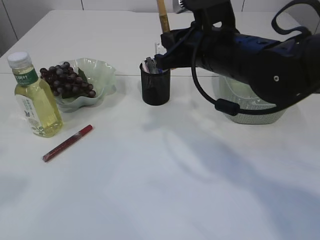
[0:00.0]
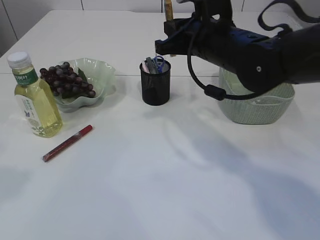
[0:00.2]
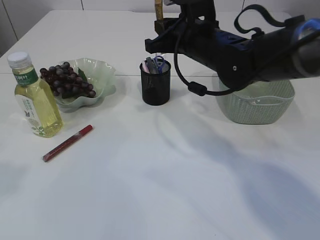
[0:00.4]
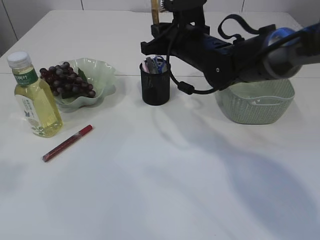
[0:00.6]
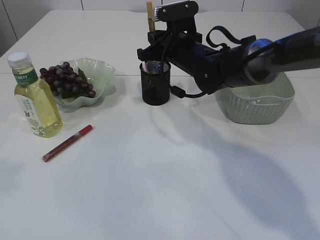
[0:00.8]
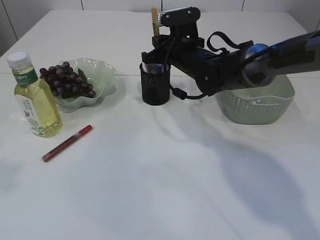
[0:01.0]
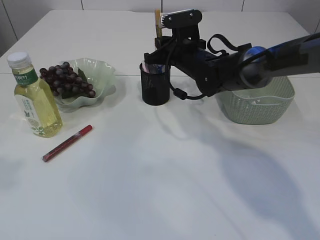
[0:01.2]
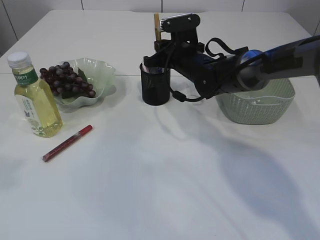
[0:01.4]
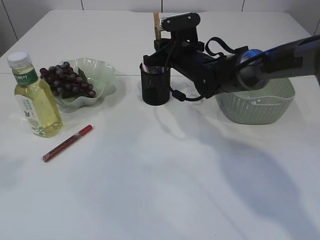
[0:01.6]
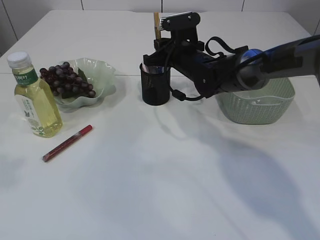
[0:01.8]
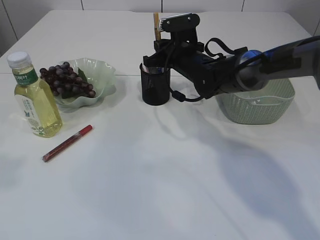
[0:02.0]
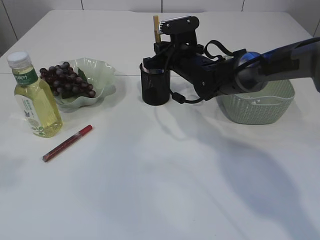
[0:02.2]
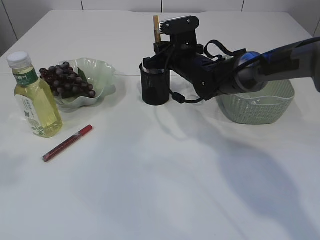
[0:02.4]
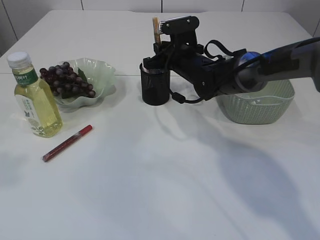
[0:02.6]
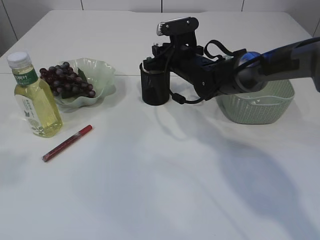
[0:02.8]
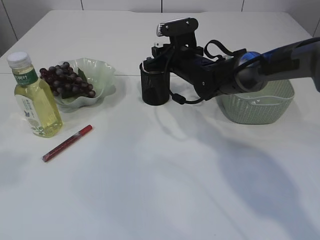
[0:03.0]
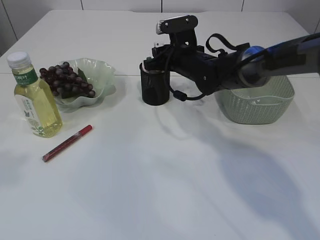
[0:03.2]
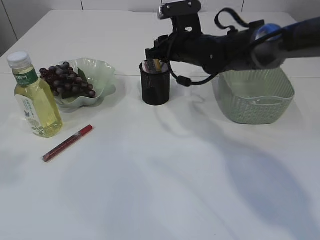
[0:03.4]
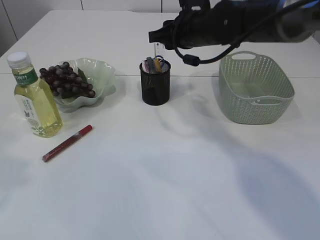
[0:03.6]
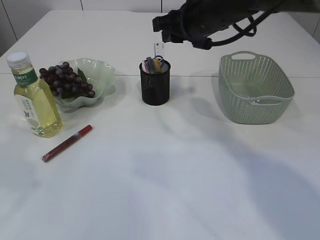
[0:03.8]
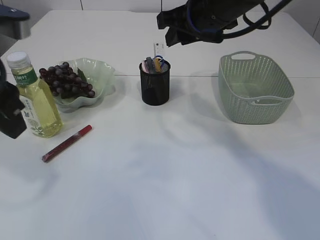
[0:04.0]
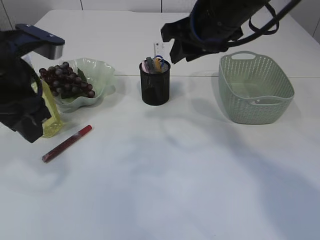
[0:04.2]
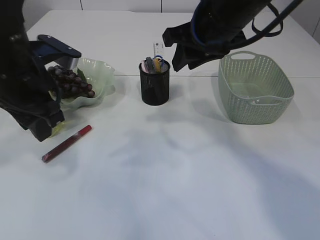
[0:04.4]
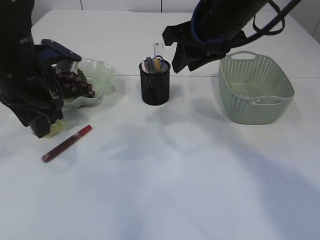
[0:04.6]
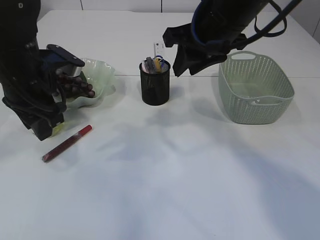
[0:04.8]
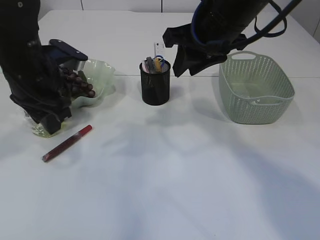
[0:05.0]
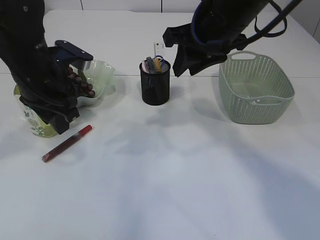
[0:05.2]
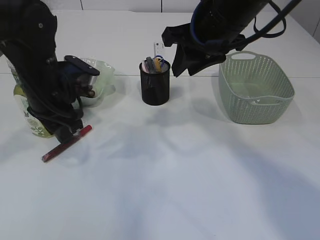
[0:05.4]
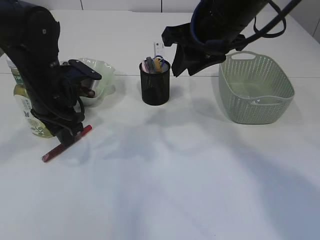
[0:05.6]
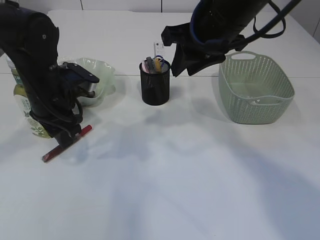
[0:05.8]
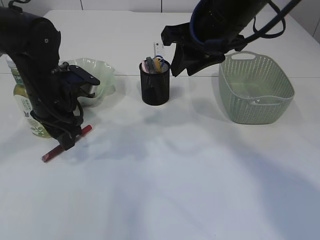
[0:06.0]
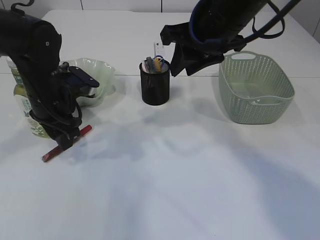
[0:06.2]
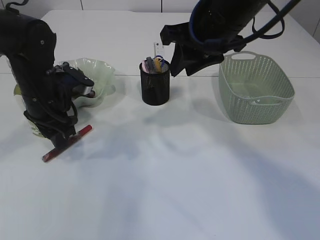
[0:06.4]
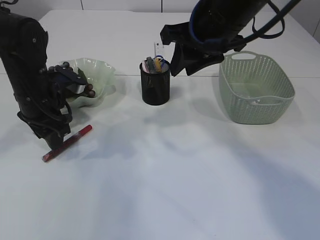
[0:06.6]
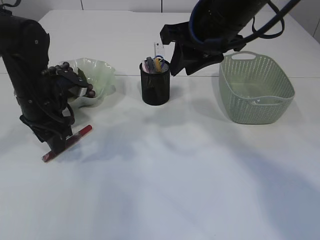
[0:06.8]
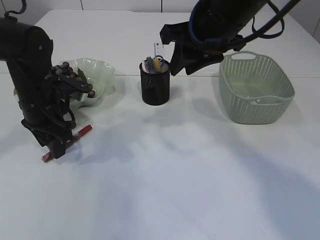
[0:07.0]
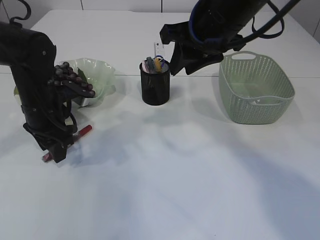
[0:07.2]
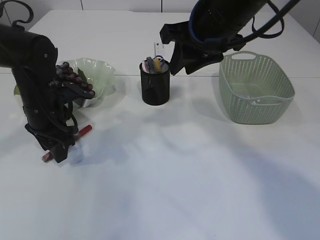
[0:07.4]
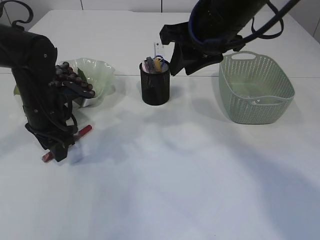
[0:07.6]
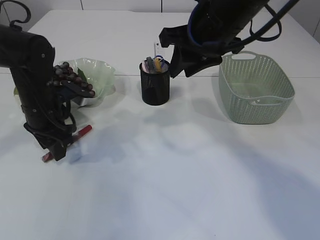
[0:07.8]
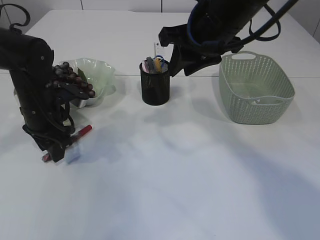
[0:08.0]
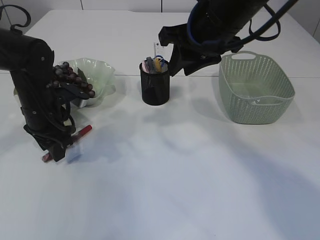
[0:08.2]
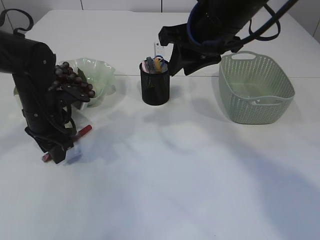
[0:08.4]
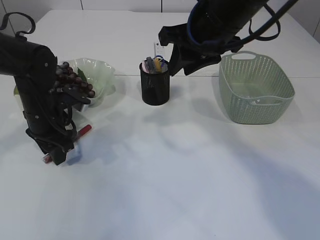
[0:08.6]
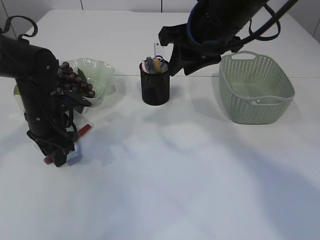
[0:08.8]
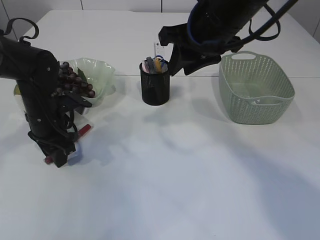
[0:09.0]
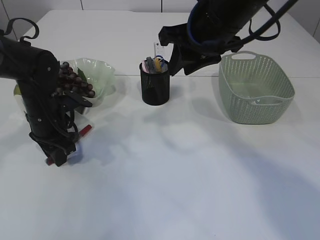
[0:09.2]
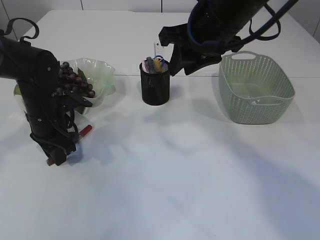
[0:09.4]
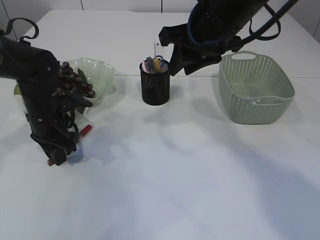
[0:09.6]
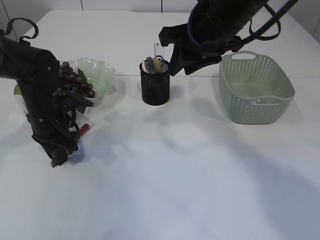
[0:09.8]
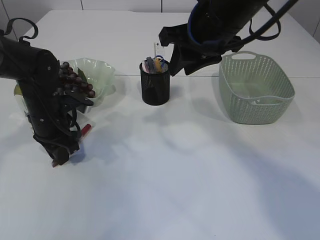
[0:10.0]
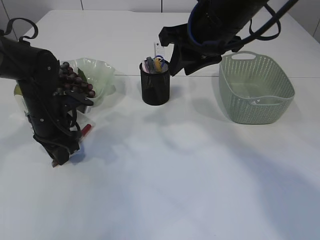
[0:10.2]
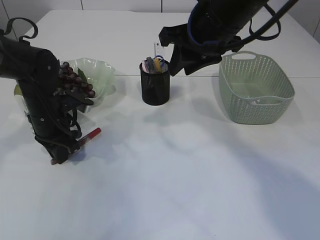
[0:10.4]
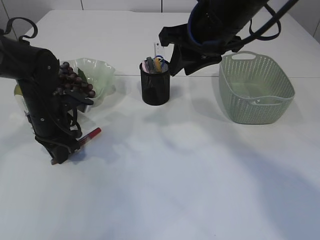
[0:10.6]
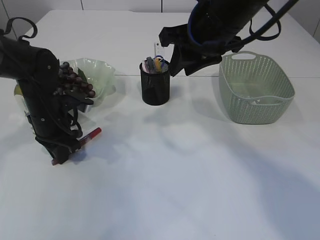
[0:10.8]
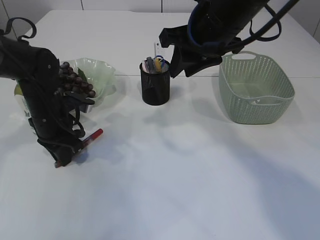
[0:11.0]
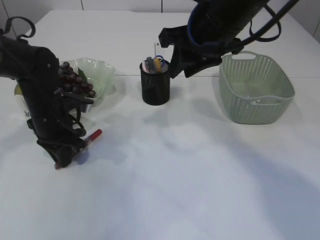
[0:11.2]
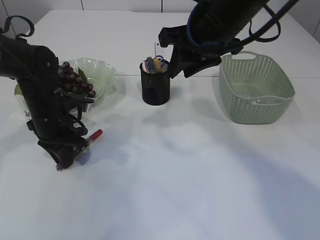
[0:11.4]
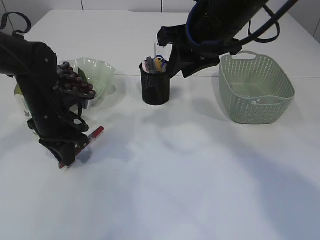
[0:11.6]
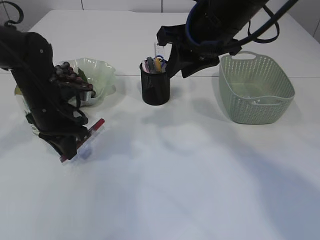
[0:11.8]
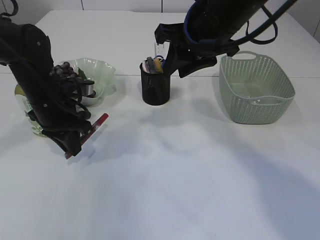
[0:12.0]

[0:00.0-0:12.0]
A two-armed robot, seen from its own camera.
Step, 0:00.0 to 0:03.4: place the yellow glue into the pen holder.
0:00.0 to 0:01.6: The right gripper travels forward and downward by about 15 cm.
0:01.6 to 0:03.0: Both grippers stay put.
0:03.0 to 0:04.4: The right gripper goes roughly 20 cm upward and backward, while the left gripper shifts some 20 cm forward, downward and to the right.
0:04.4 to 0:06.0: The left gripper travels downward and forward by some 10 cm.
0:06.0 to 0:07.6: The grippers stay close to where they were, moving slightly.
0:07.6 to 0:09.0: There are only small adjustments of the grippers.
0:09.0 to 0:10.4: The left gripper closes up.
0:10.4 to 0:12.0: The grippers move only a little.

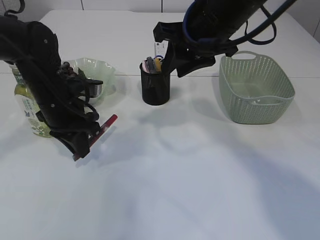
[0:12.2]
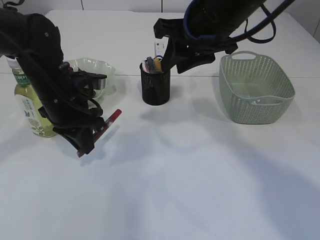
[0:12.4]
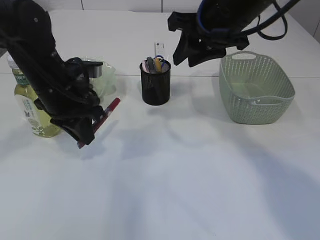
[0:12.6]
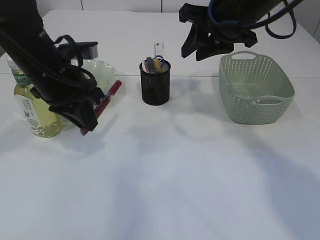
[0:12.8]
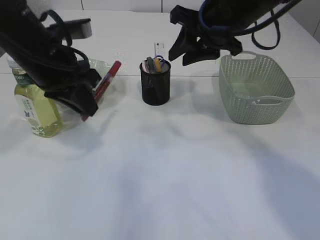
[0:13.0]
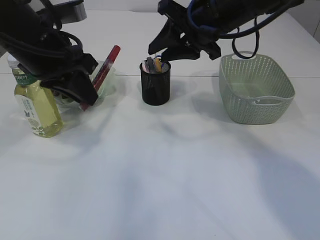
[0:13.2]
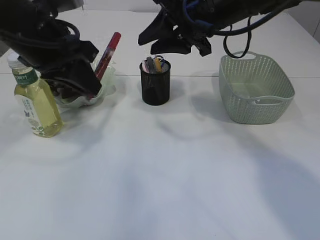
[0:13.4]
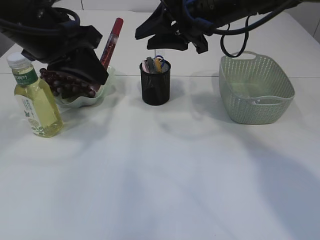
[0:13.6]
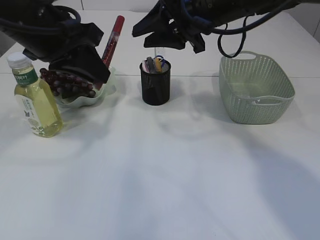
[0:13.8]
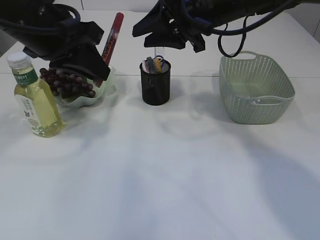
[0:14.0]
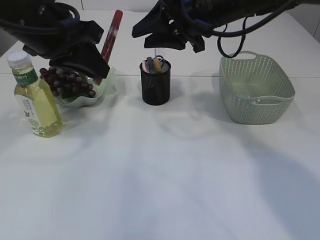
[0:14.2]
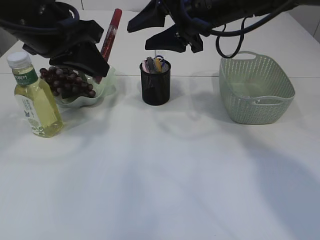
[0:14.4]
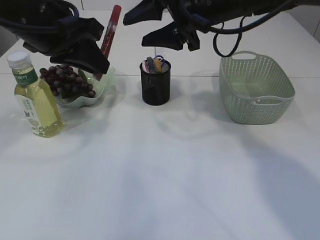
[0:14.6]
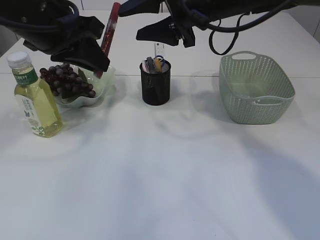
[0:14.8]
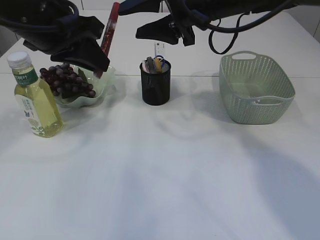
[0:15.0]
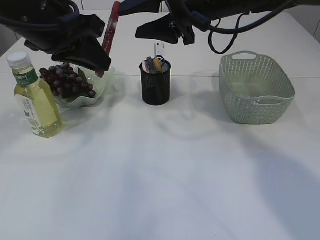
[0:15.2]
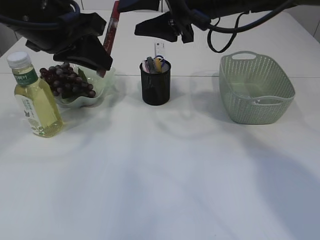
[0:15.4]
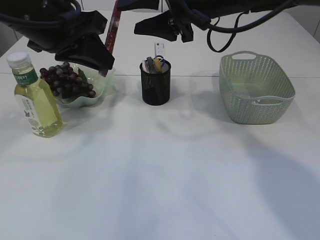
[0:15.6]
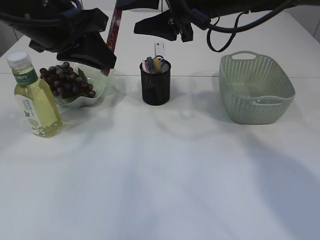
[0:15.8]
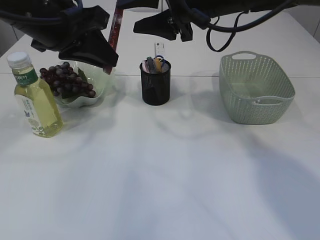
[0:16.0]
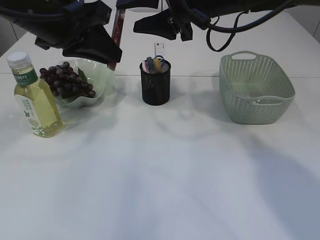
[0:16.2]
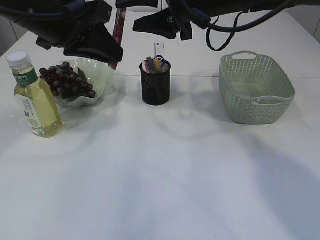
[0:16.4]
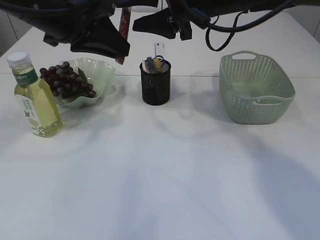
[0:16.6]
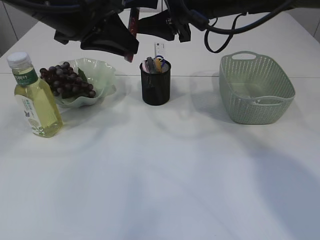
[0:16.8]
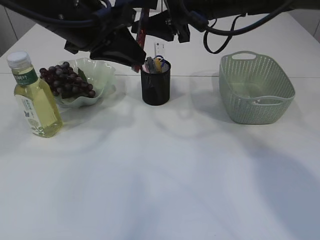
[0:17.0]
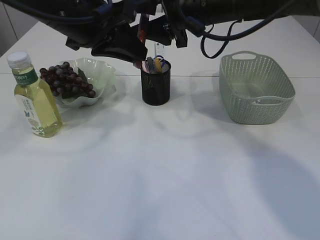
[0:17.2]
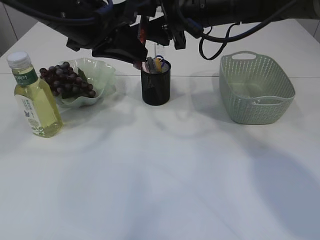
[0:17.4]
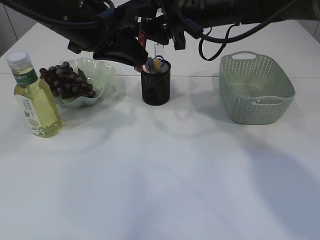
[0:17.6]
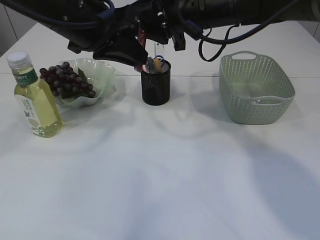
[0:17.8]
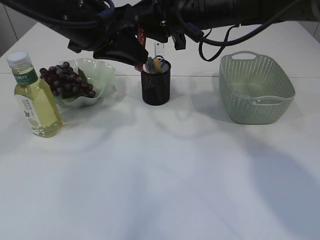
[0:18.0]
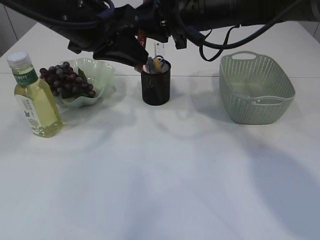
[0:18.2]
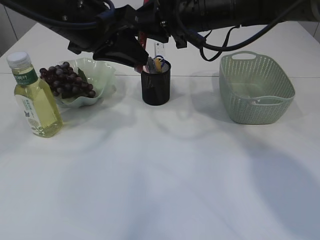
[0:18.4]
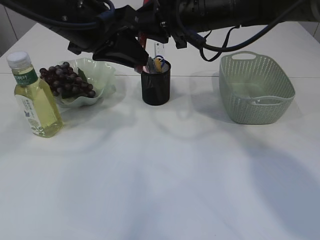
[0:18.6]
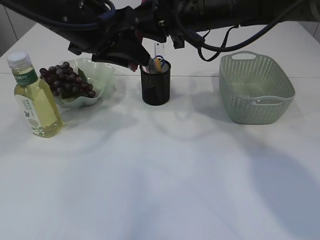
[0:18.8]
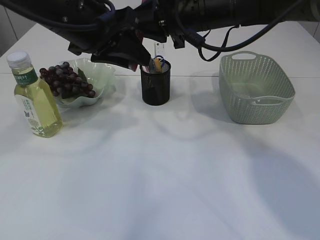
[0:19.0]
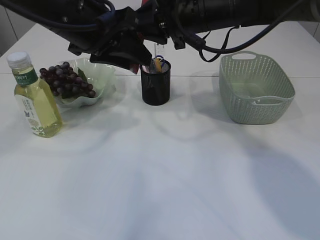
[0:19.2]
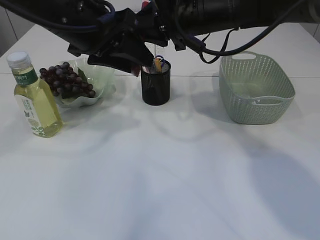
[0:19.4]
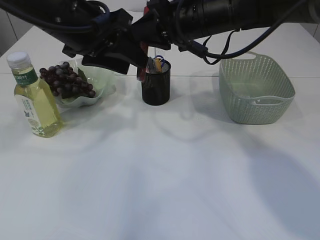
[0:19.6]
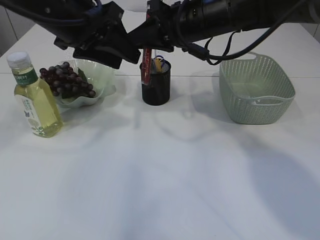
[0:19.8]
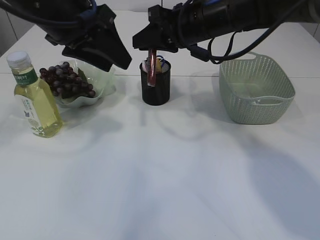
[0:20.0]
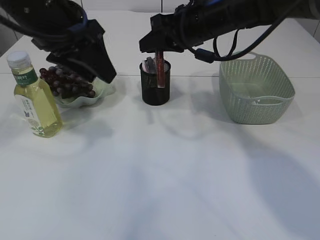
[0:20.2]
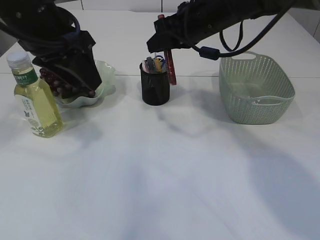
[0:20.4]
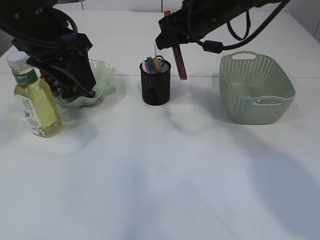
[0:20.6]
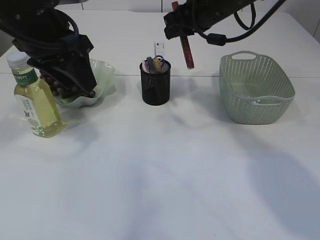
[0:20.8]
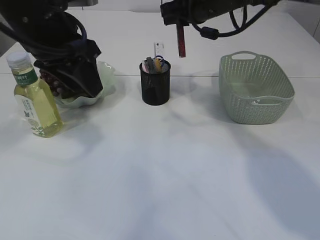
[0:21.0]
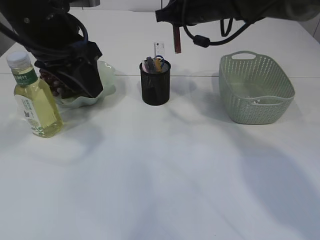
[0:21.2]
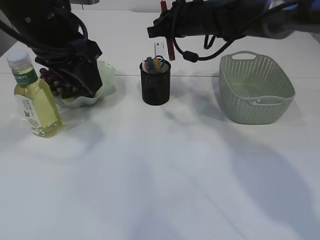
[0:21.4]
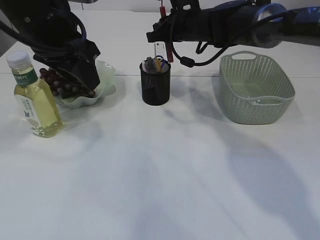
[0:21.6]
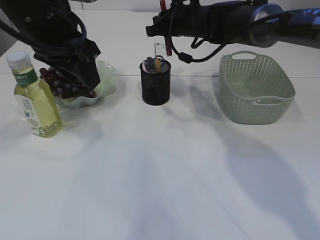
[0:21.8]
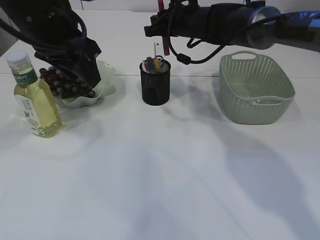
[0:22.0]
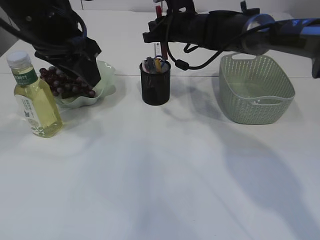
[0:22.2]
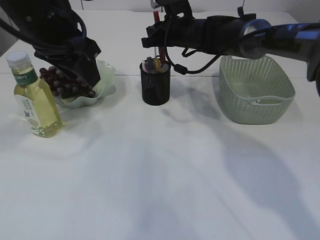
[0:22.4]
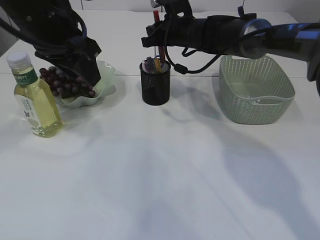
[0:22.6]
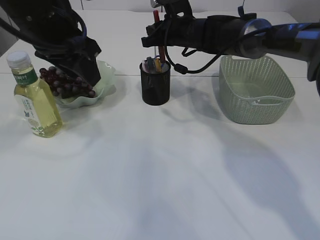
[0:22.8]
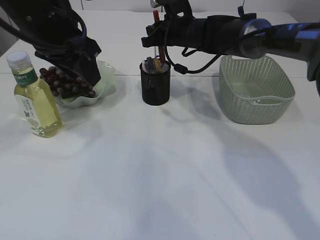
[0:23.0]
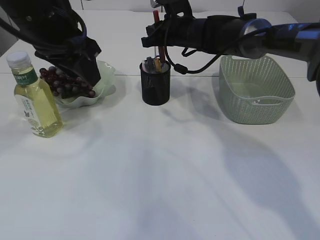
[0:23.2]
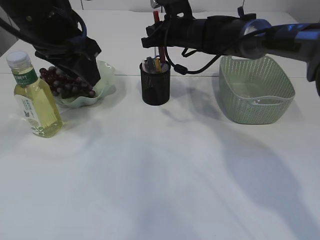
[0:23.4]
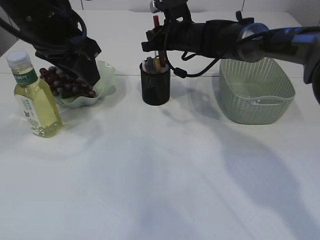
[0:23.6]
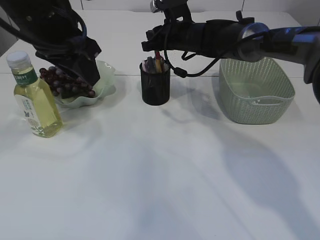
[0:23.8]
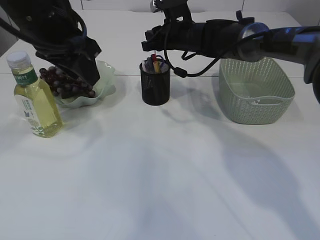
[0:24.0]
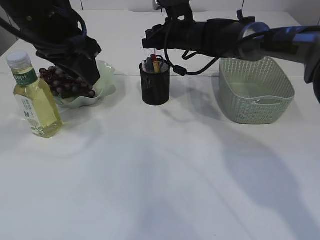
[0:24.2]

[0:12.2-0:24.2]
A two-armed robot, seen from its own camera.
Step, 0:13.0 to 0:20.4: Hand over the red glue.
0:12.2 to 0:13.8: The left gripper moves upward, roughly 15 cm.
0:13.8 to 0:16.6: The grippers move only a little.
0:16.6 to 0:18.2: The right gripper closes its fingers.
0:18.2 to 0:19.8: The left gripper opens its fingers.
0:19.8 to 0:21.2: The right gripper shifts about 5 cm forward.
0:21.2 to 0:22.6: The right gripper moves downward, about 5 cm.
0:22.6 to 0:24.2: Neither gripper changes place.
